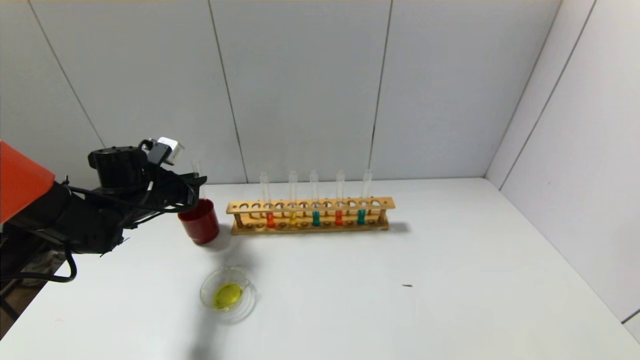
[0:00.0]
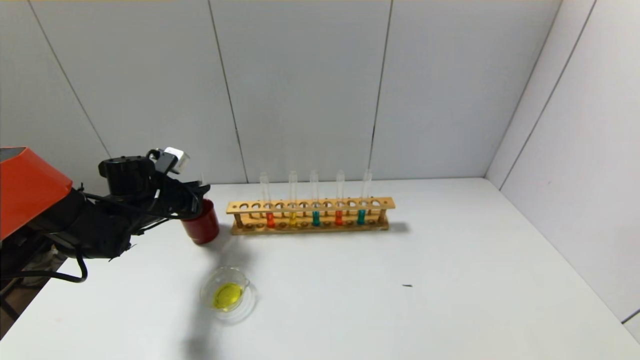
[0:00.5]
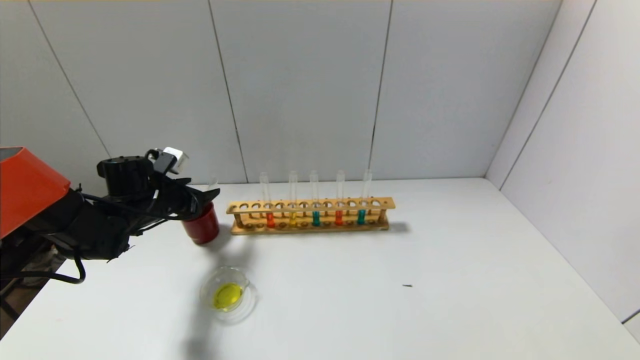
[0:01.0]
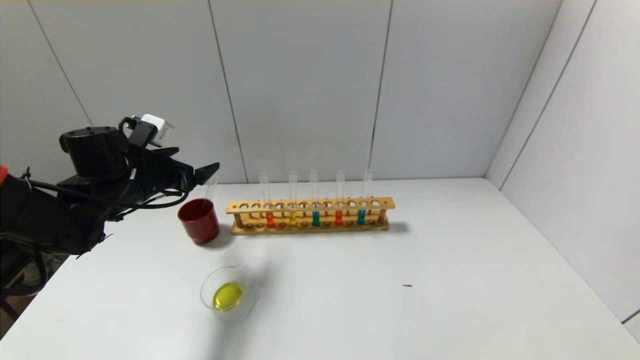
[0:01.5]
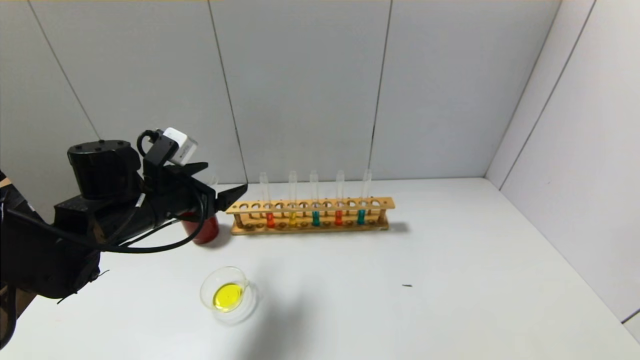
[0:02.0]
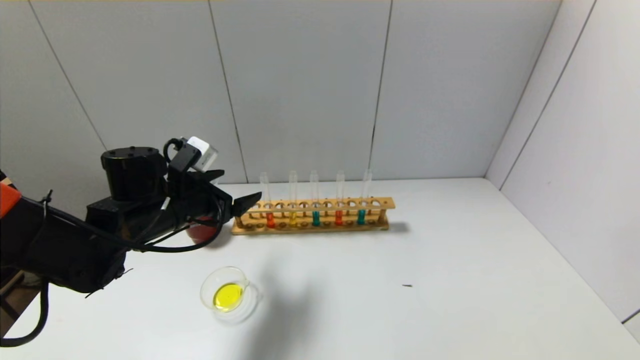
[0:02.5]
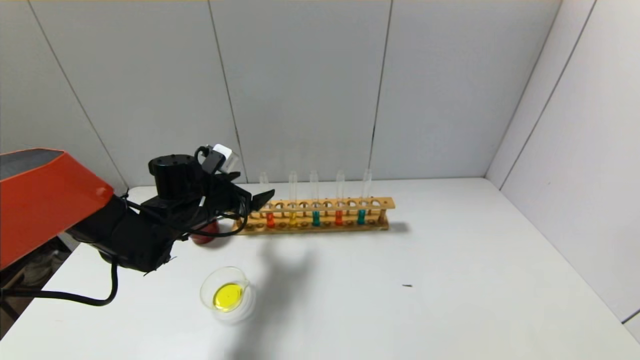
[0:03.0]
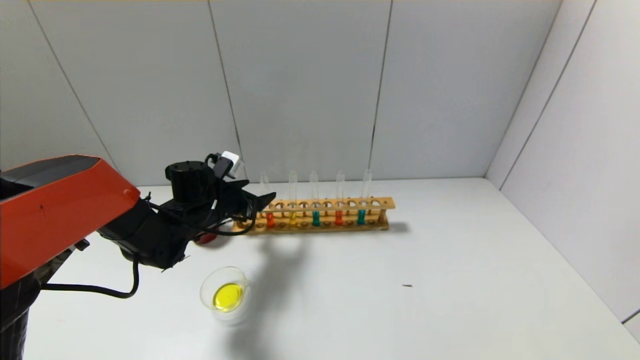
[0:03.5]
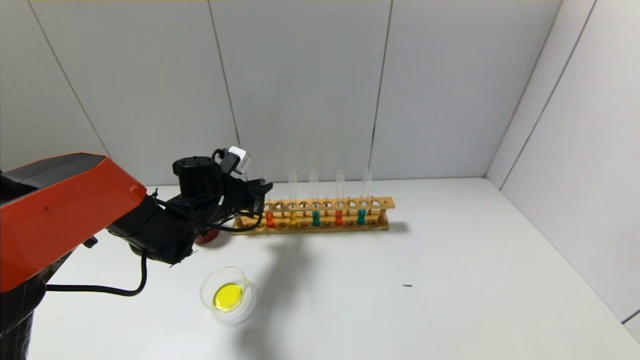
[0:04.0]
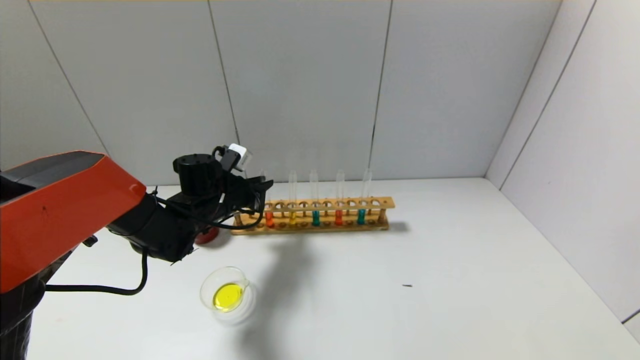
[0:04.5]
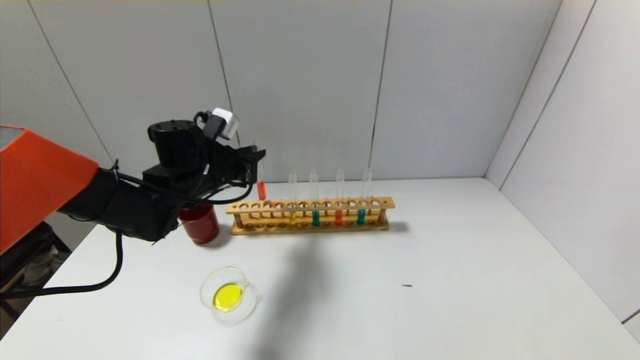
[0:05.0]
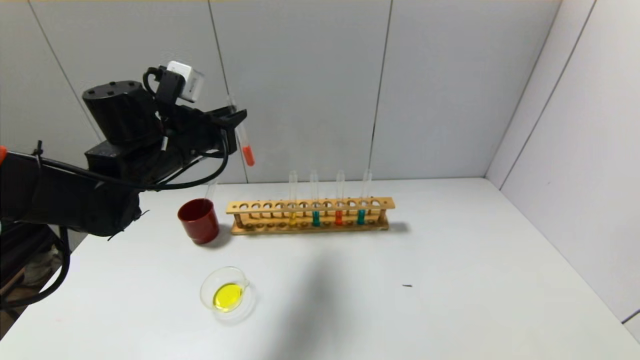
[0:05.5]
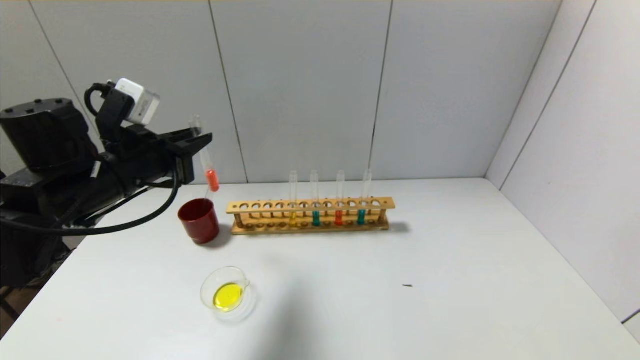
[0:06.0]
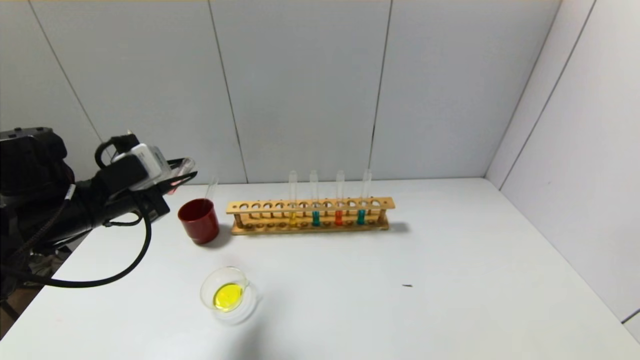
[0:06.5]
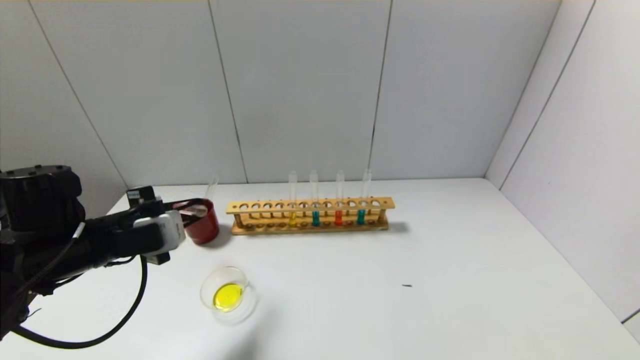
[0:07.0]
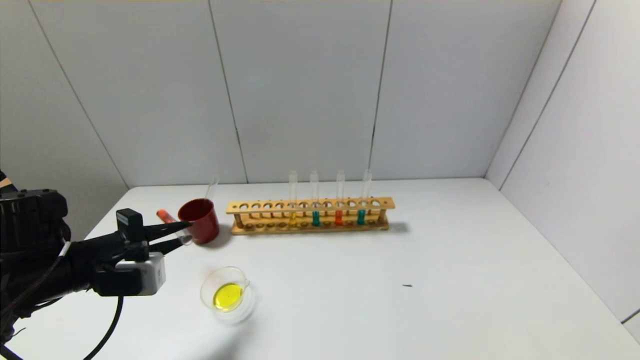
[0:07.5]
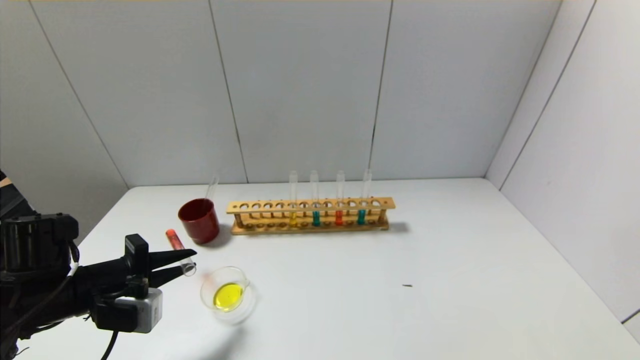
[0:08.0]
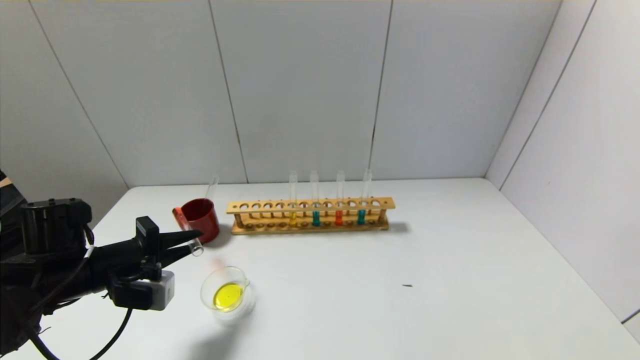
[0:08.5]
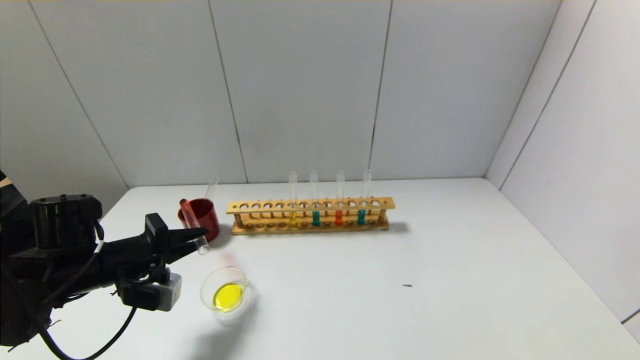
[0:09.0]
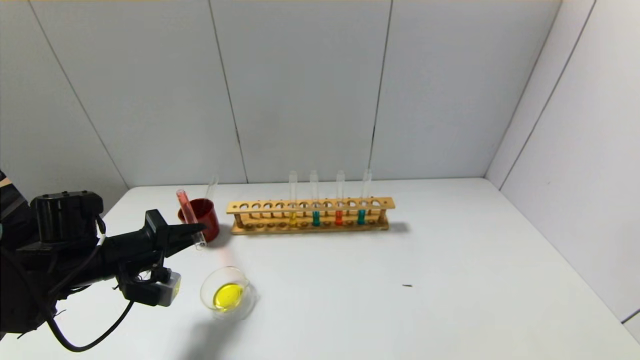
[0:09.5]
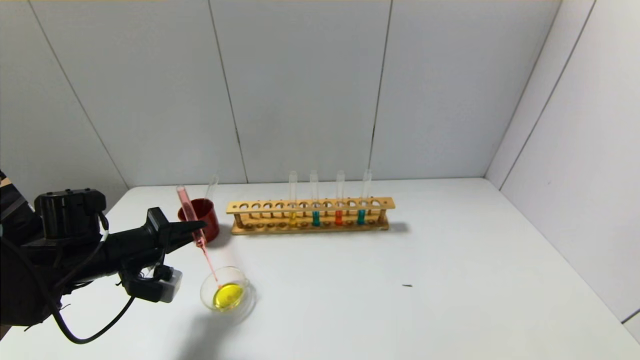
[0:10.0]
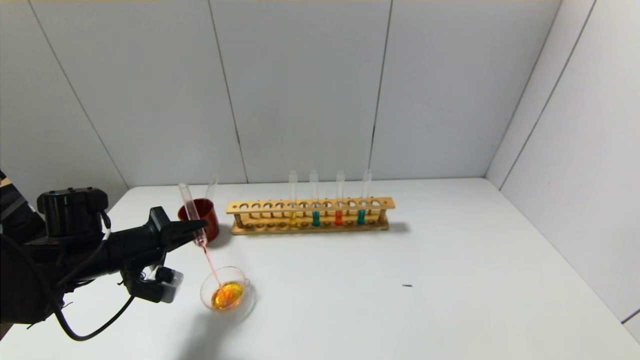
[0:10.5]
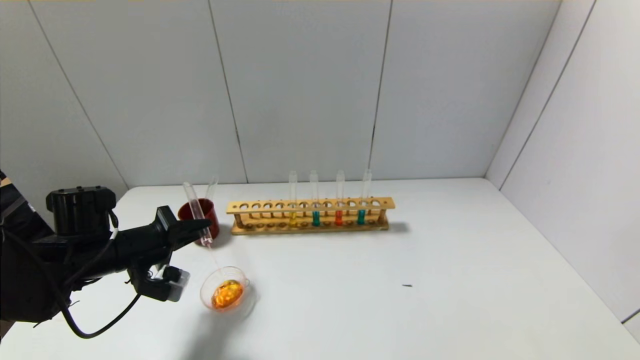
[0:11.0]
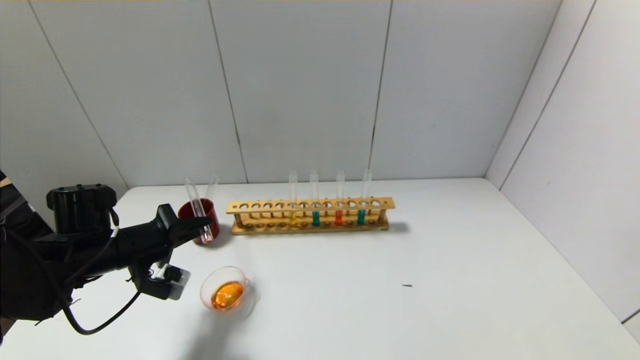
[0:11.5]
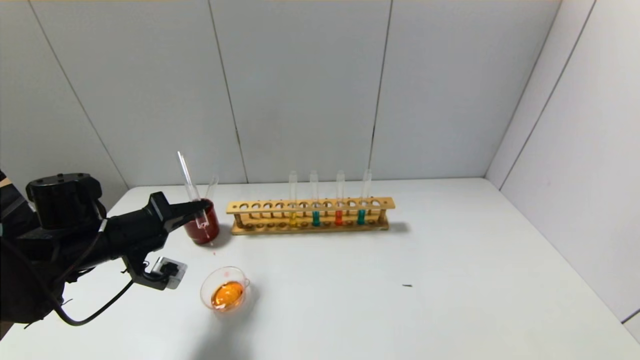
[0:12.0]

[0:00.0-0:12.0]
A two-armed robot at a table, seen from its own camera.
Step, 0:01.0 to 0:04.0: Grasp the red reagent with the left gripper.
0:00.0 to 0:02.0: The left gripper travels backward and to the right by roughly 10 cm, and opens.
0:02.0 to 0:04.0: The left gripper goes about 10 cm forward and downward, and closes its fingers.
0:04.0 to 0:06.0: The left gripper travels upward, backward and to the left by some 20 cm.
0:06.0 to 0:08.0: The left gripper goes approximately 15 cm downward and backward.
0:08.0 to 0:10.0: The left gripper heads forward, covering some 5 cm.
0:10.0 to 0:12.0: There are only small adjustments of the grippers.

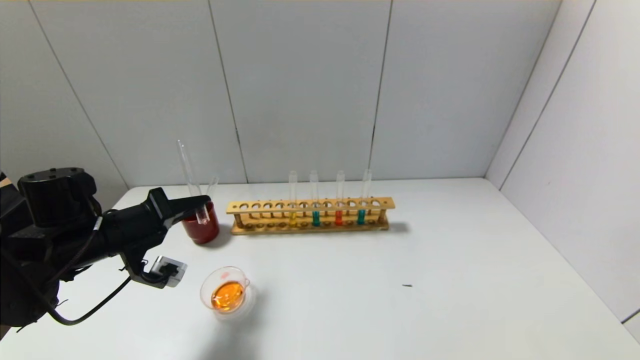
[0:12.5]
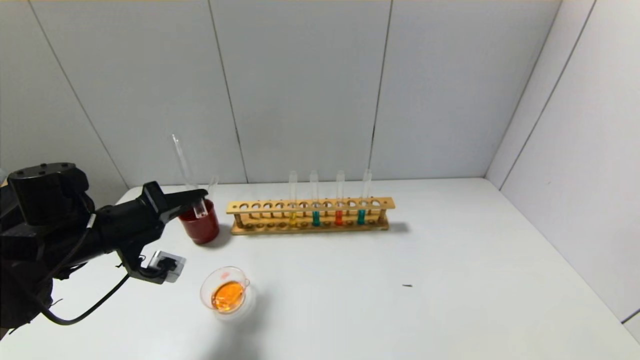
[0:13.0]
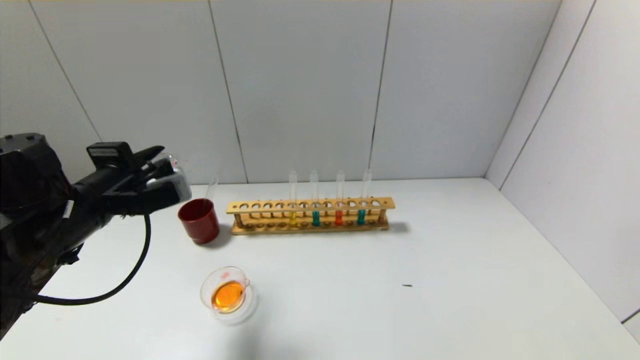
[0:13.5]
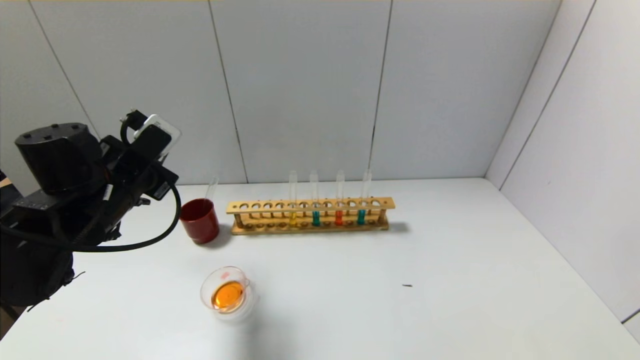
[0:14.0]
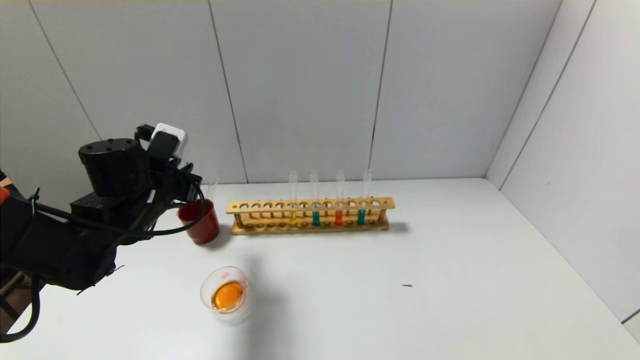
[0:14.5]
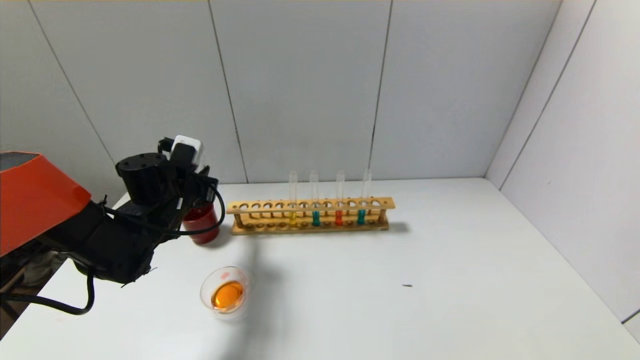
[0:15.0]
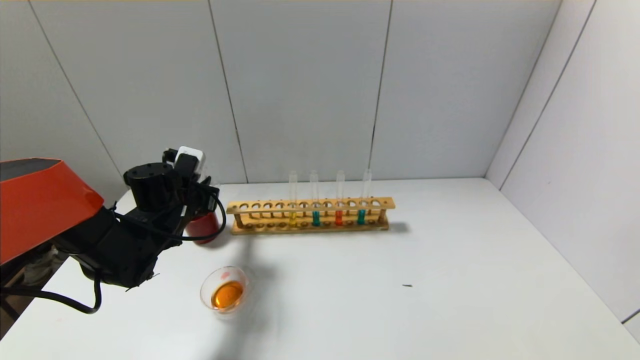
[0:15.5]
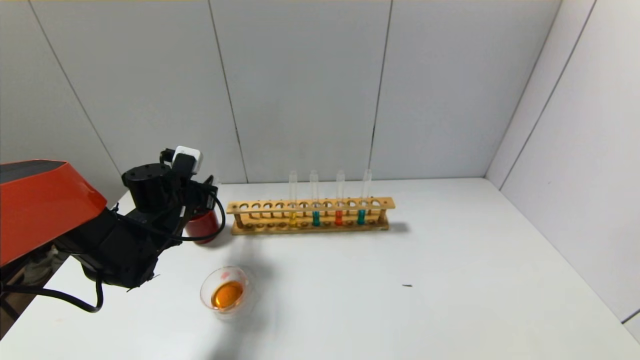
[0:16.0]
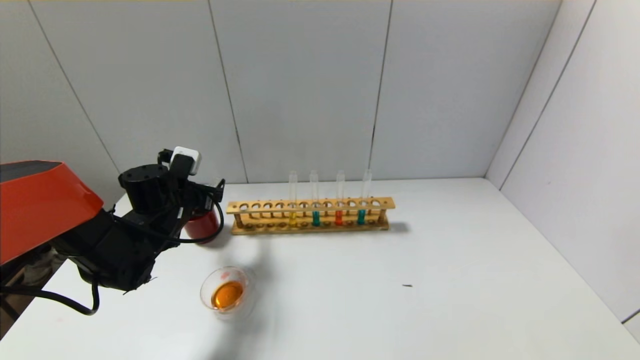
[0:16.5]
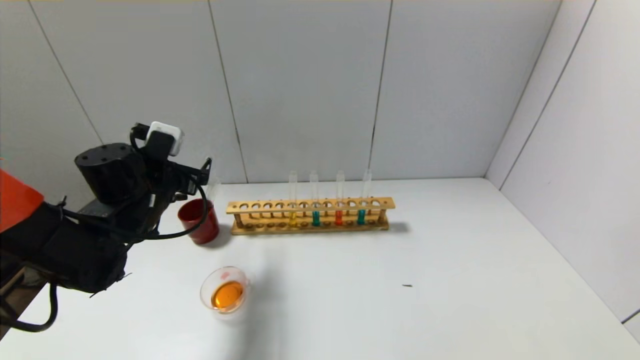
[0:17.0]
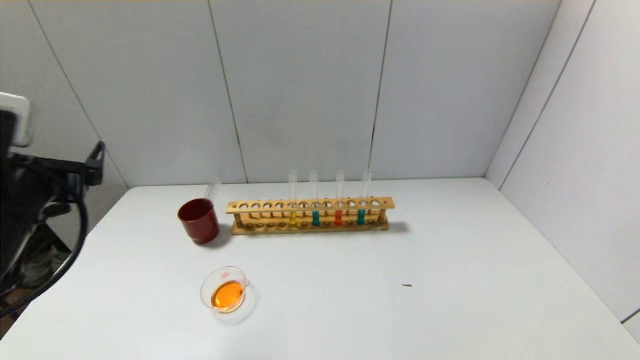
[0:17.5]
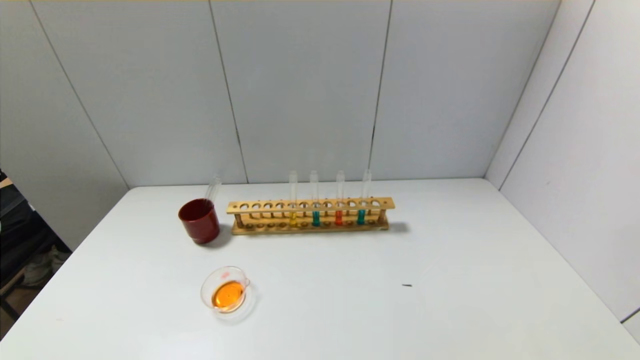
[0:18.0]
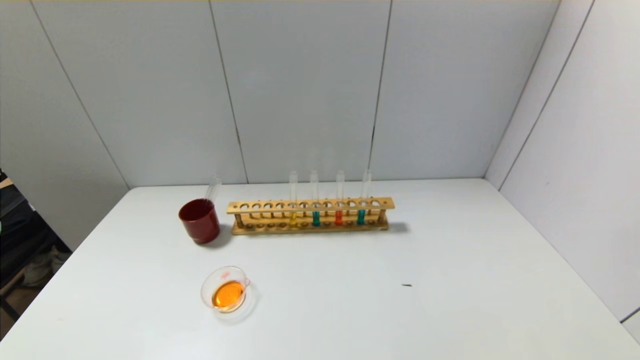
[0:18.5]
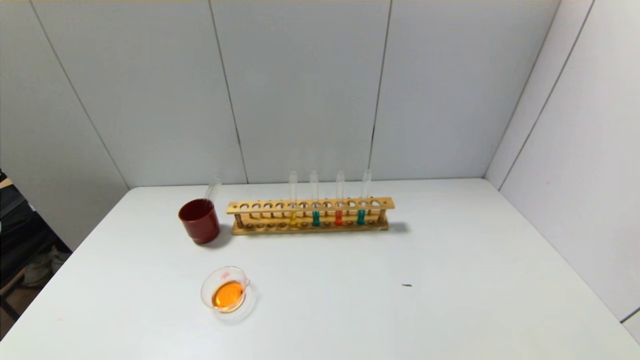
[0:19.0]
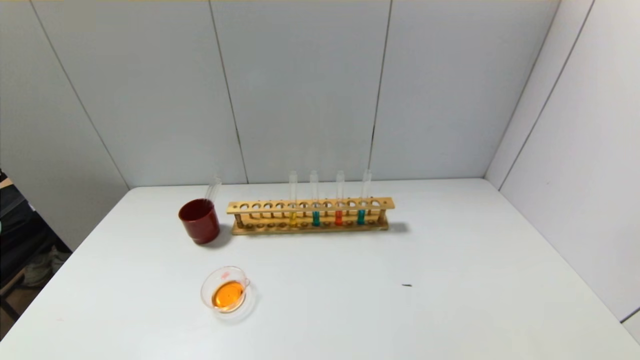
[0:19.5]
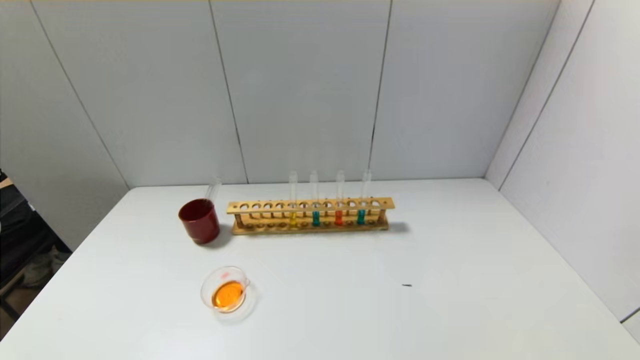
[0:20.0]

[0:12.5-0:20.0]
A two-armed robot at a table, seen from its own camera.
Step, 0:13.5 to 0:16.0: Place the test tube into the brown cup with the left gripper.
0:12.5 to 0:14.5: The left gripper ends up about 5 cm from where it was.
0:14.5 to 0:16.5: The left gripper heads downward, covering some 5 cm, and opens up.
0:16.5 to 0:18.0: The left gripper moves backward, some 35 cm.
